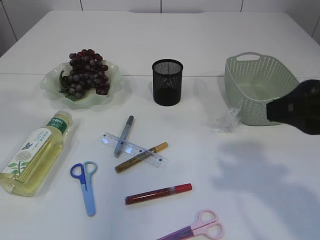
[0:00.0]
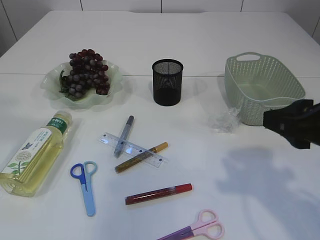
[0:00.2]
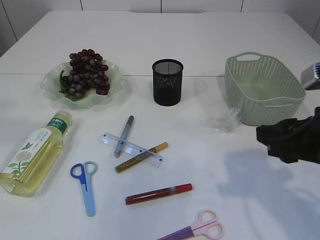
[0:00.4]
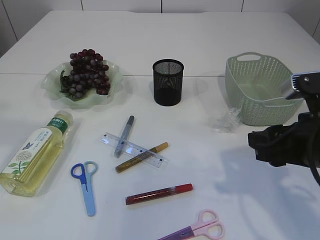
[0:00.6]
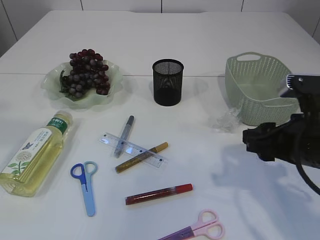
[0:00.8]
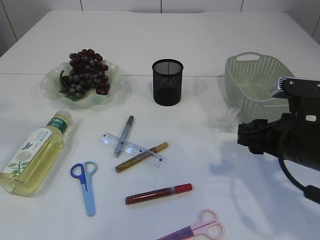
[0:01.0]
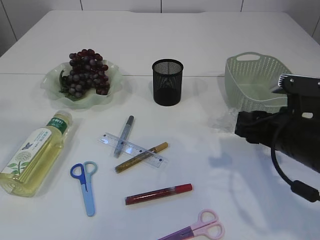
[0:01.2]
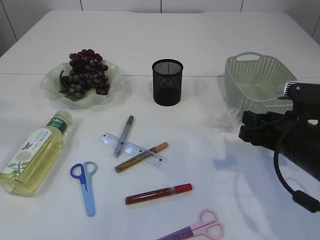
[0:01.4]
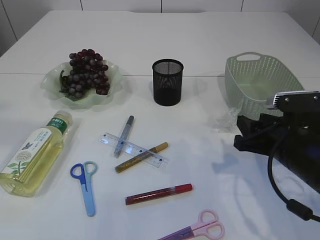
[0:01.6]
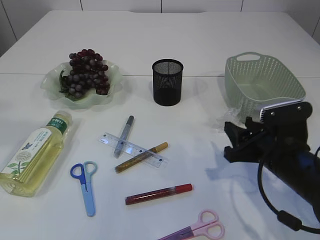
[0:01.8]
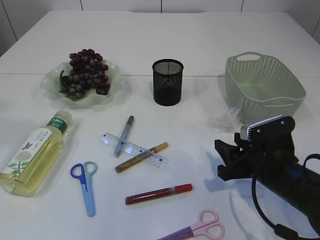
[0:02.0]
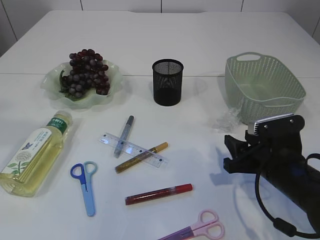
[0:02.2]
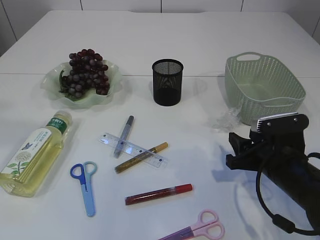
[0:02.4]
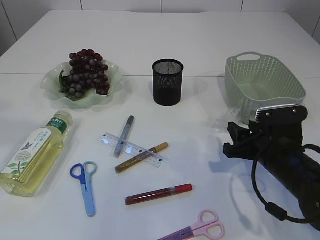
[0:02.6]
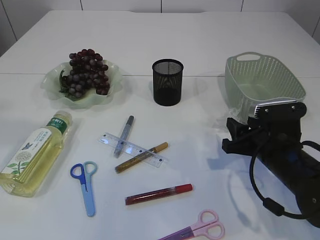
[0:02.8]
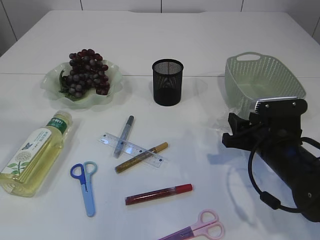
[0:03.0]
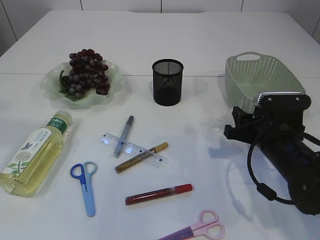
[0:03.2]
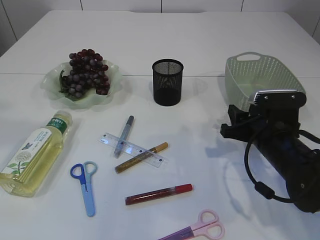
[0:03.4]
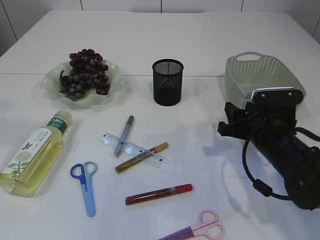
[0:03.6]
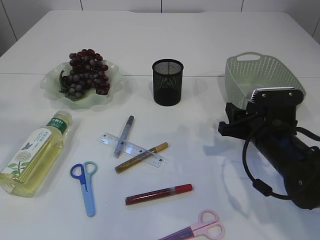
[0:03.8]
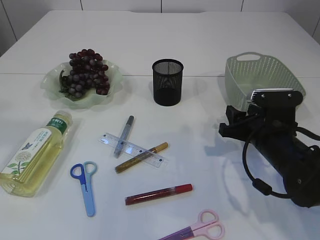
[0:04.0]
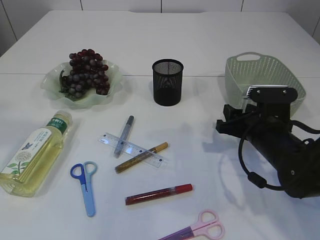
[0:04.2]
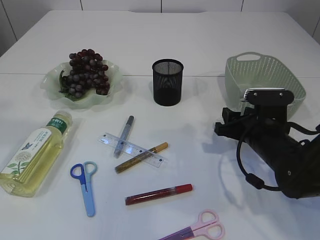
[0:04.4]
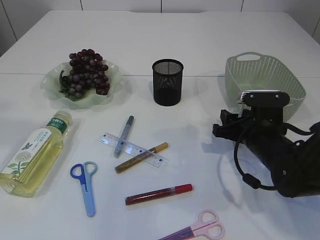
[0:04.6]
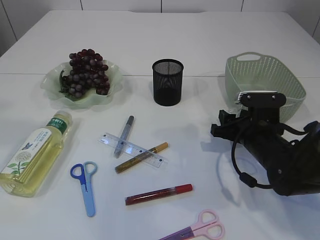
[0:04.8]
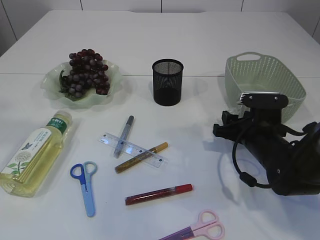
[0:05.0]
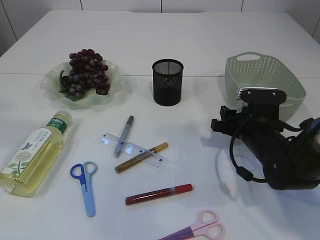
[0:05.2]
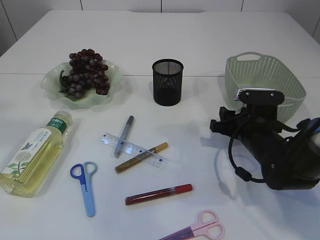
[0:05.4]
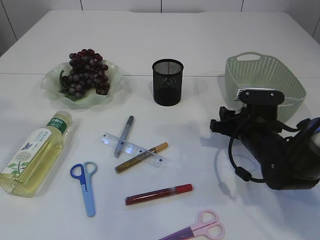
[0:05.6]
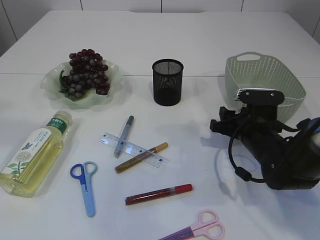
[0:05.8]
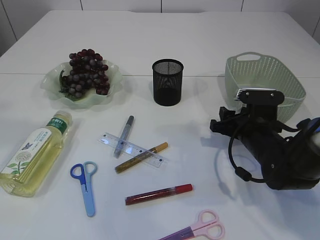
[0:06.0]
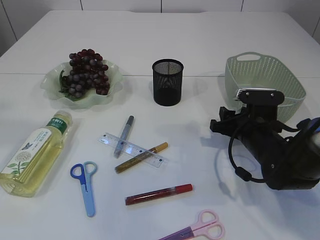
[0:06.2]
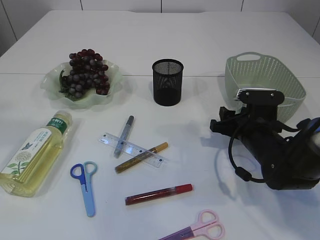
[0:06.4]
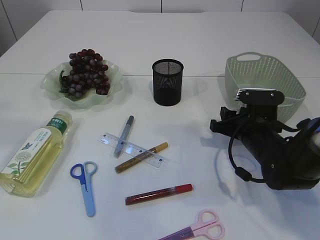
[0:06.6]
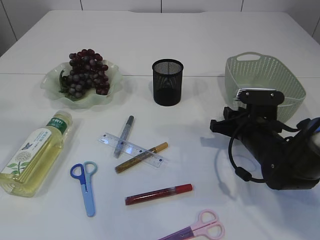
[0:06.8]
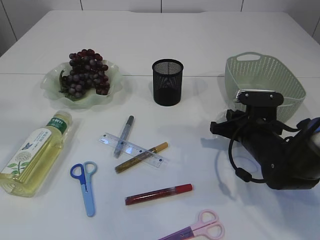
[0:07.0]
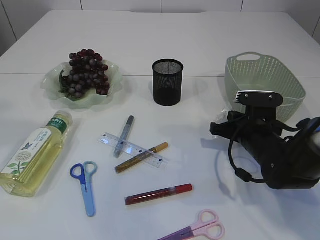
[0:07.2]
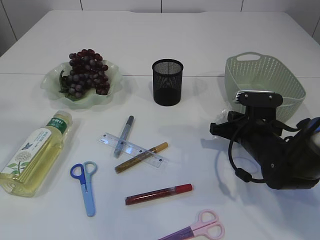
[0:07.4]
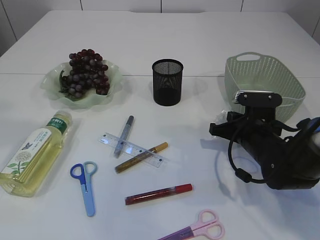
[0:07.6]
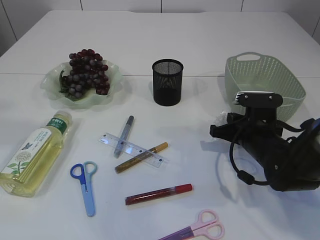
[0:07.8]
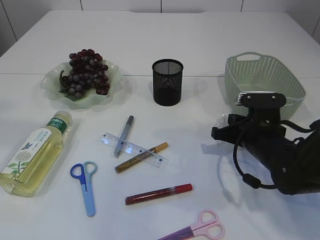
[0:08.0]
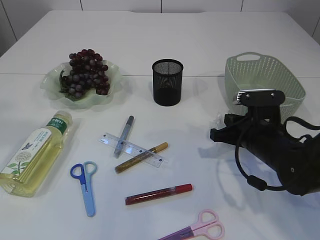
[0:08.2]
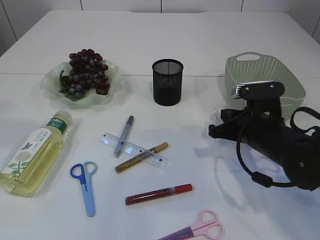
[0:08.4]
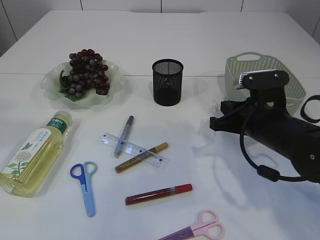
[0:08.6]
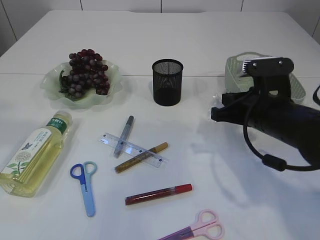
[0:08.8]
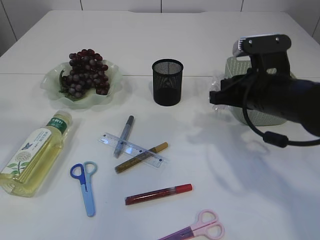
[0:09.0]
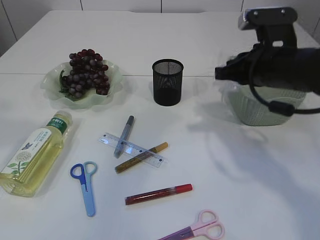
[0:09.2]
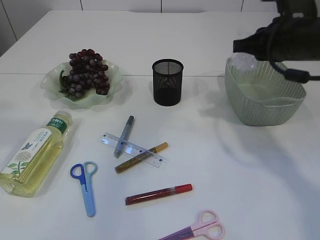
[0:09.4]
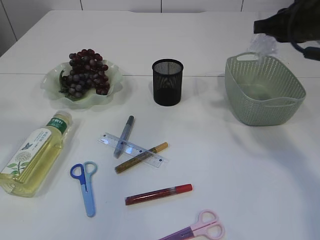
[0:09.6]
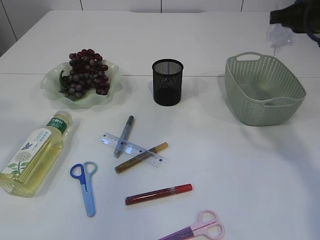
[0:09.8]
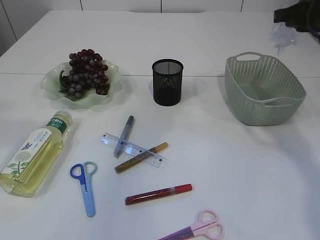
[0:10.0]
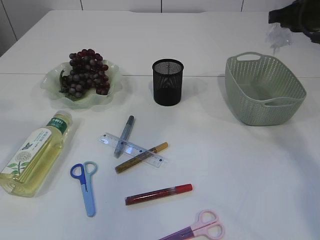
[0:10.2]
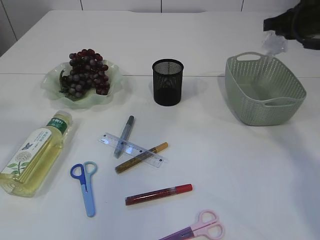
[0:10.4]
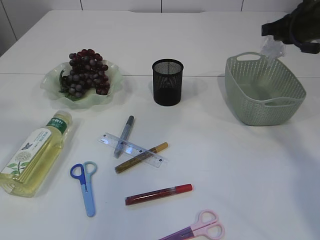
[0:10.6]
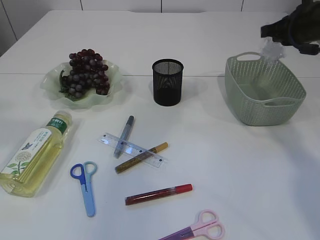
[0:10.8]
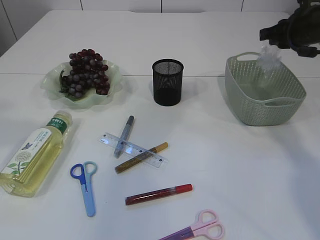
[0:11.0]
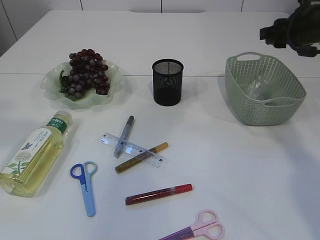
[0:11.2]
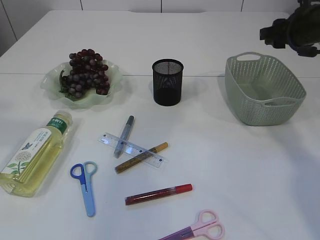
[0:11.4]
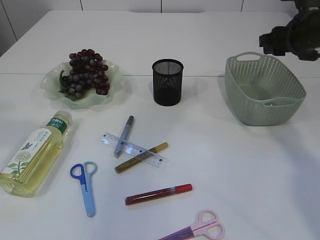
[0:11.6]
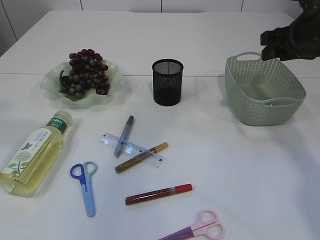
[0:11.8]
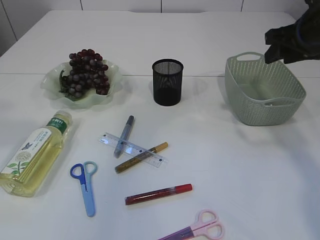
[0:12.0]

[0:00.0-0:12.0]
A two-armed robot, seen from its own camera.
Step, 0:00.0 to 0:09.0: Pick up the plastic.
Step, 0:09.2 to 0:12.0: Place the plastic in the basket.
0:00.0 to 0:01.6: The left gripper shifts approximately 5 cm backward, while the right gripper travels downward and forward by approximately 20 cm.
0:01.6 to 0:03.0: The grippers move only a little.
0:03.0 to 0:06.0: The grippers move only a little.
0:06.0 to 0:07.6: The right gripper closes.
0:07.6 to 0:09.0: The right gripper shifts about 10 cm upward.
0:09.0 to 0:10.4: The right gripper moves to the right, forward and upward, about 15 cm.
0:10.4 to 0:12.0: The right gripper opens up.

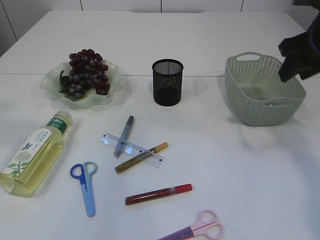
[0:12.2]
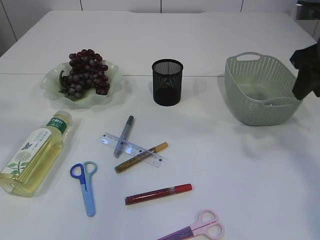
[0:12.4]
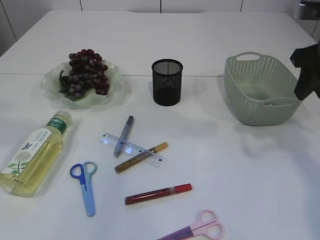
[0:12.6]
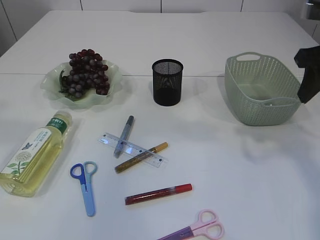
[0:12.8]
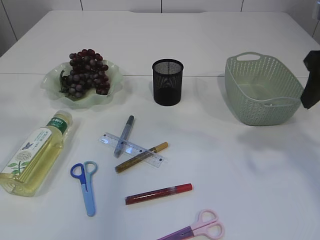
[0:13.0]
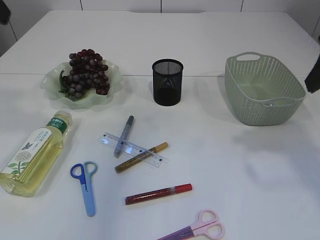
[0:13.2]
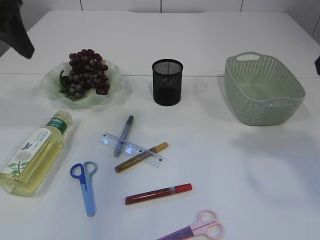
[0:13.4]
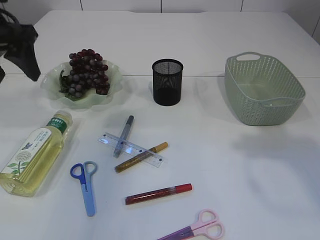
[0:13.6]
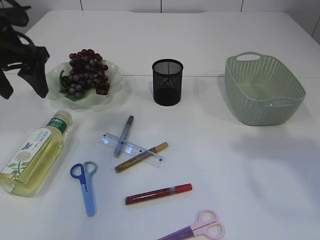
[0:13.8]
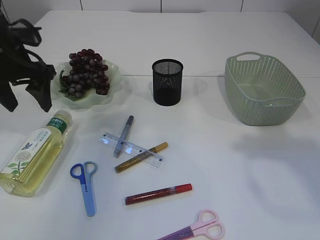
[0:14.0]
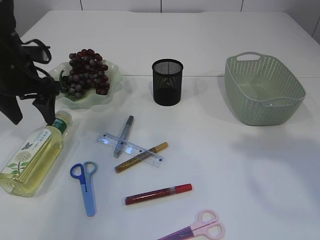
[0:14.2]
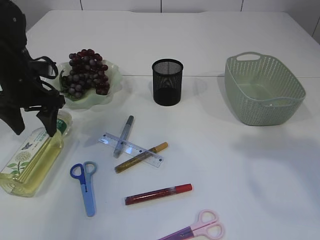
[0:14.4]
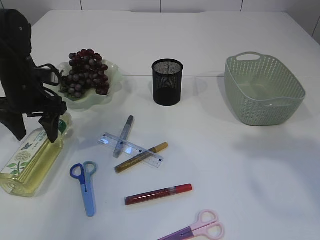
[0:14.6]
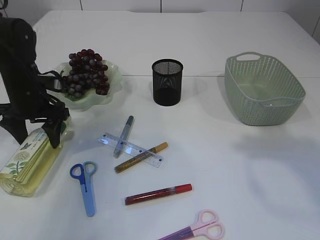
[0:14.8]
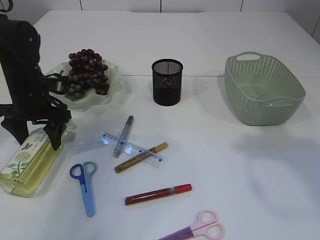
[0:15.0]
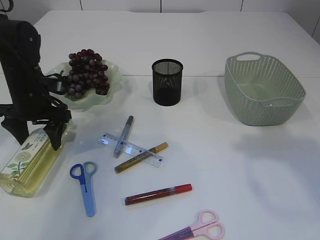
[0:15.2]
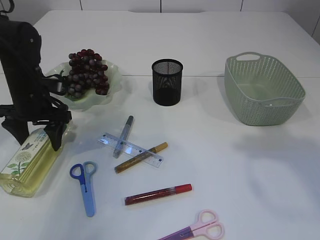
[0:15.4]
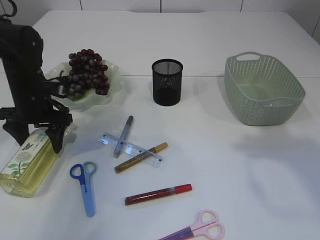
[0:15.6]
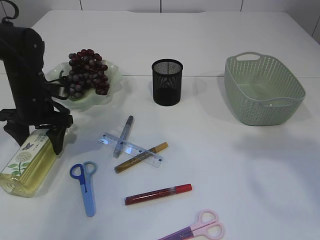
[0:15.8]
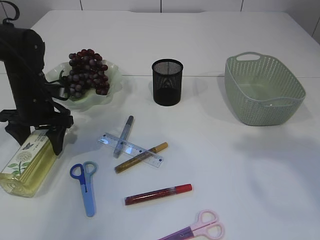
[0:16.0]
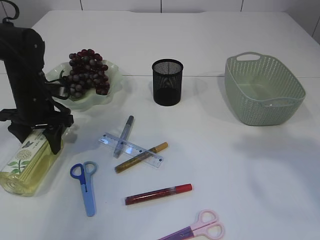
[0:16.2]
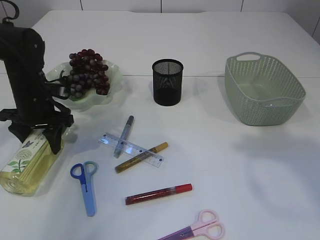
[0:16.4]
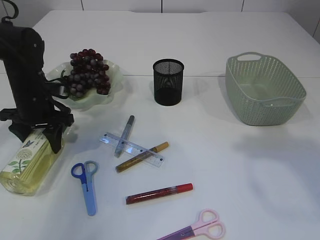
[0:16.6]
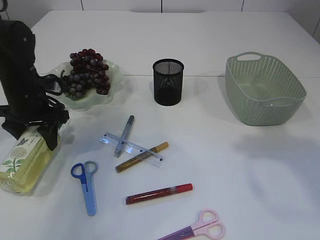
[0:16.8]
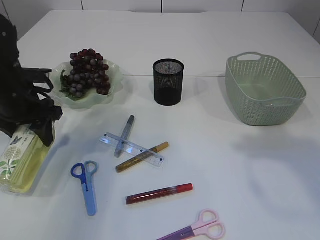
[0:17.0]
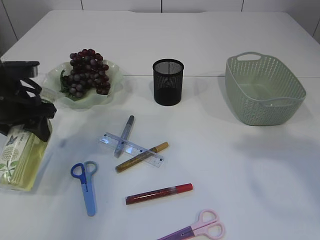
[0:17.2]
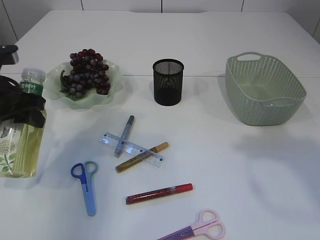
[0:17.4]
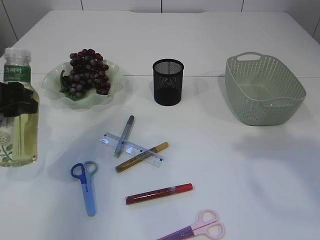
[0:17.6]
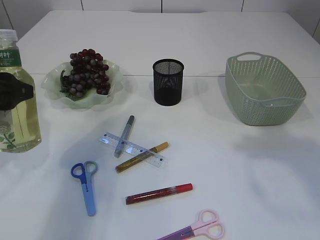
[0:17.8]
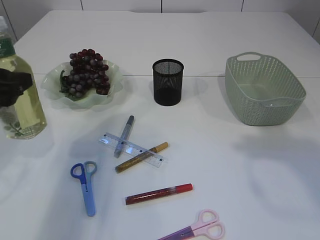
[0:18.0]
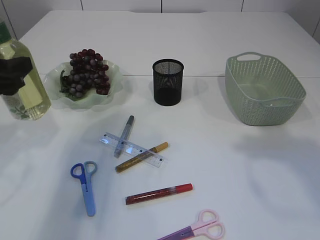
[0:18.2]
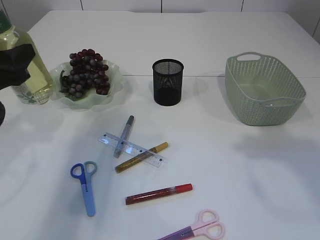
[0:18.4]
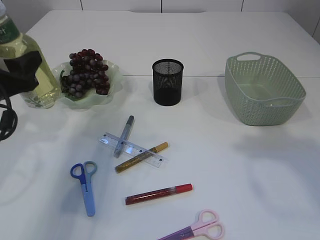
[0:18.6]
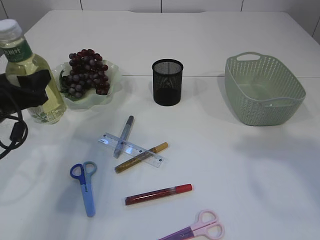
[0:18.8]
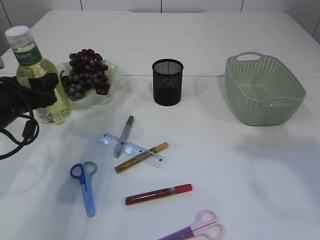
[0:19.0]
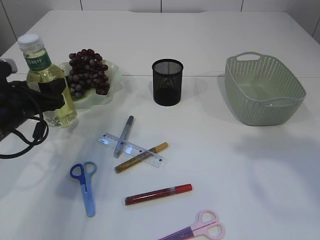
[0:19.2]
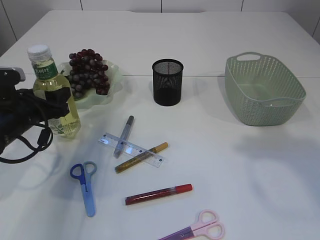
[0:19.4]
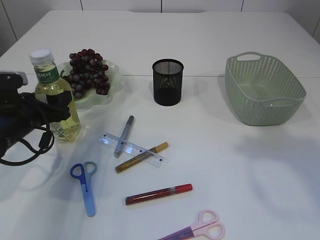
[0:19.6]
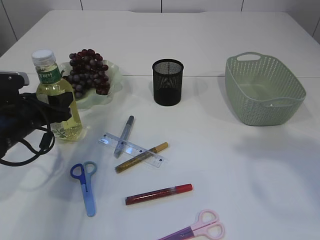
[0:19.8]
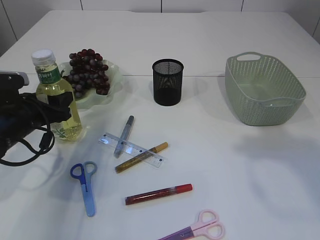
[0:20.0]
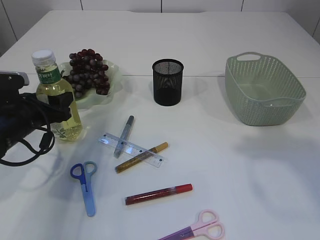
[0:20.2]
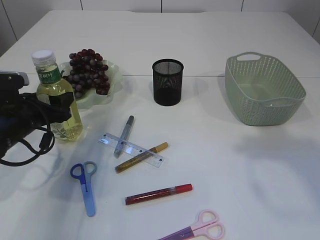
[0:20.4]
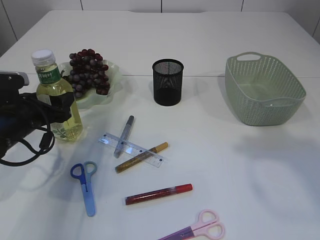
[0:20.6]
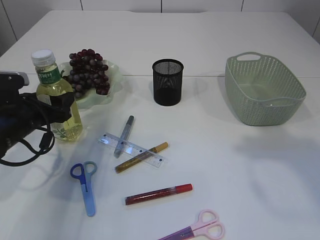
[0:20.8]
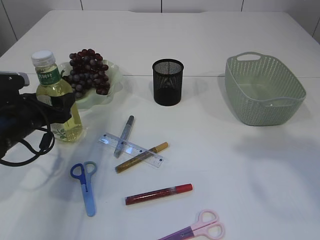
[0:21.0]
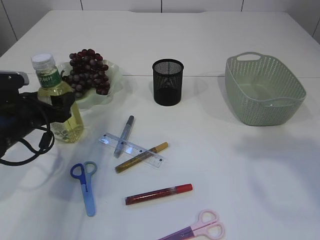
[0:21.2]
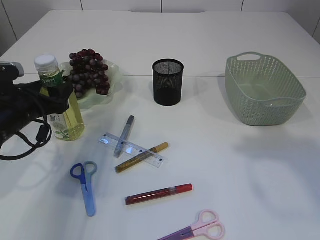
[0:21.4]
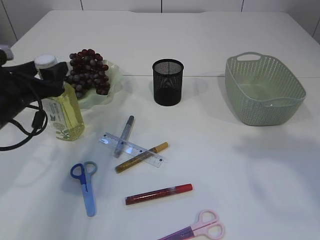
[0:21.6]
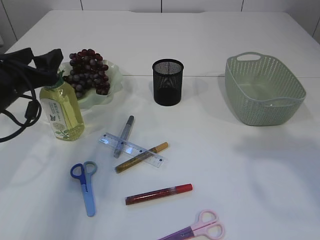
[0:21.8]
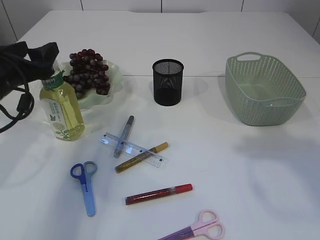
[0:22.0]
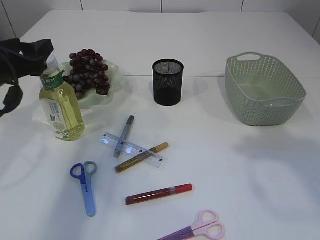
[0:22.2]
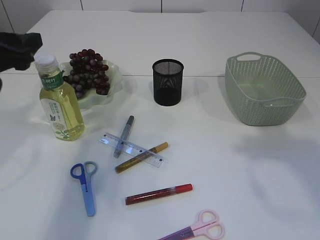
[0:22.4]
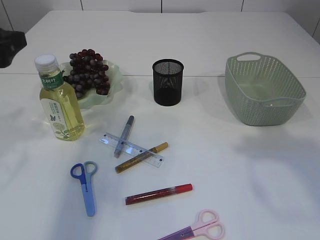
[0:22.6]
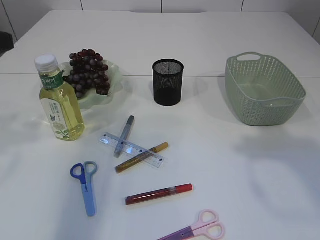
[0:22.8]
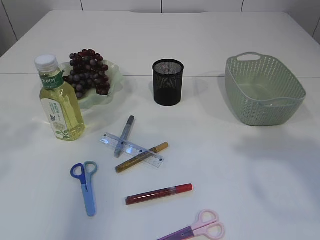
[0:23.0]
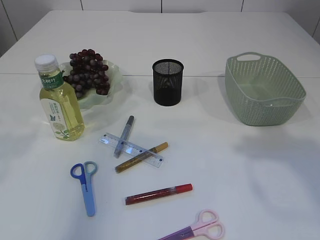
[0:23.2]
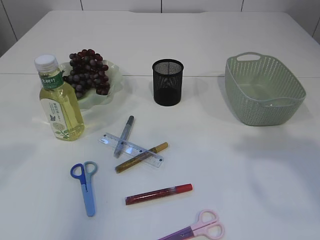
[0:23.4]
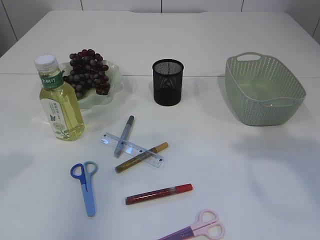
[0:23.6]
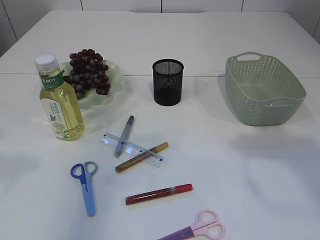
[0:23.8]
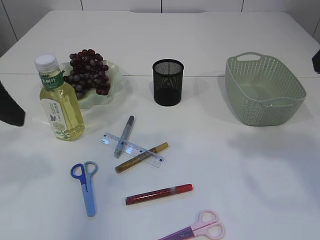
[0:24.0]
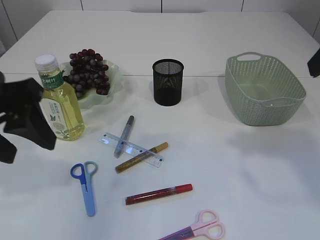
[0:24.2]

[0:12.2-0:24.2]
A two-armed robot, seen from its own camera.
Step, 0:12.2 to 0:17.4: Pick up the bottle with the left arm.
Step, 0:17.6 to 0:22.4: Place the bottle.
0:12.2 to 0:13.8: The right gripper shifts roughly 15 cm backward and upward; the left gripper heads downward and forward, covering approximately 25 cm, and opens its fingers.
0:13.8 to 0:15.2: The left gripper heads downward, covering approximately 15 cm.
0:15.2 to 0:16.6: The grippers make only small movements.
0:16.6 to 0:18.2: The left gripper travels backward and upward by roughly 15 cm.
0:18.2 to 0:19.8: The left gripper travels downward and forward by some 15 cm.
0:19.8 to 0:21.2: The two grippers keep their place.
0:21.2 to 0:22.6: The left gripper travels upward by about 15 cm.
0:22.6 to 0:24.2: The left gripper heads to the right and backward, covering approximately 10 cm.
